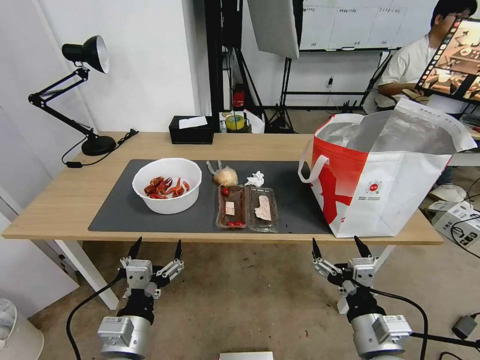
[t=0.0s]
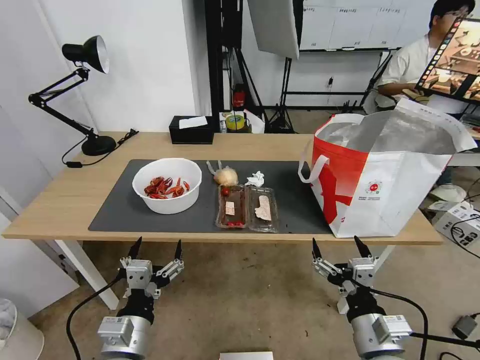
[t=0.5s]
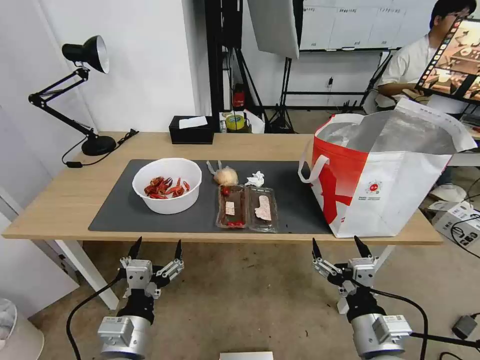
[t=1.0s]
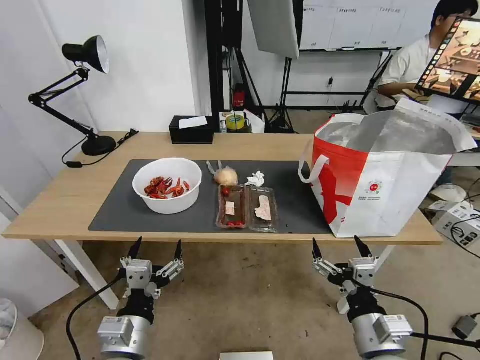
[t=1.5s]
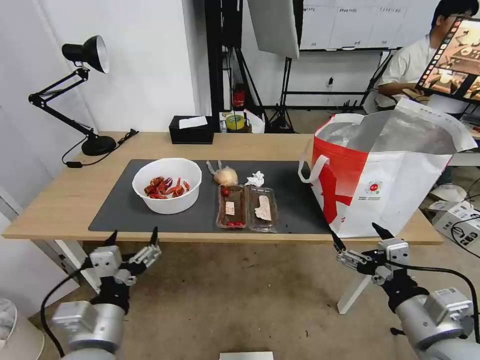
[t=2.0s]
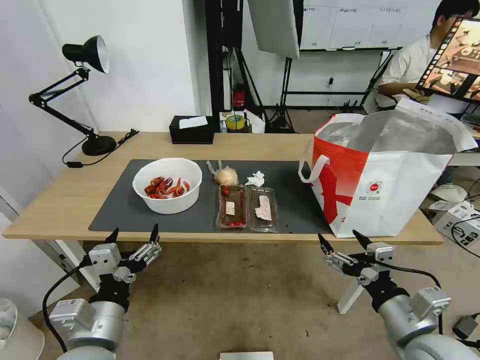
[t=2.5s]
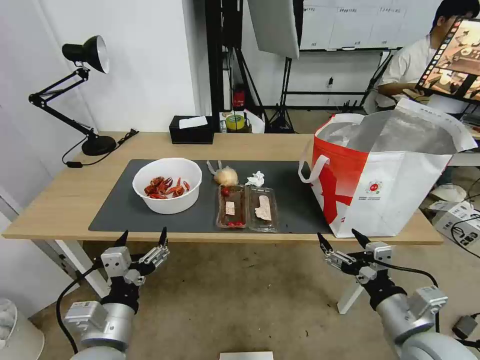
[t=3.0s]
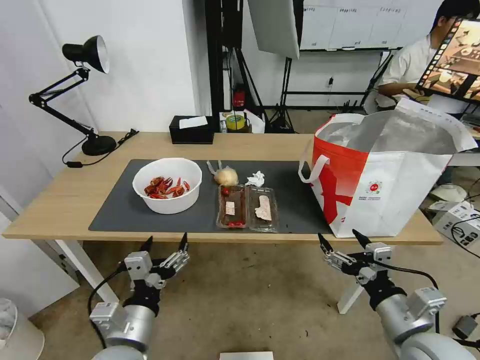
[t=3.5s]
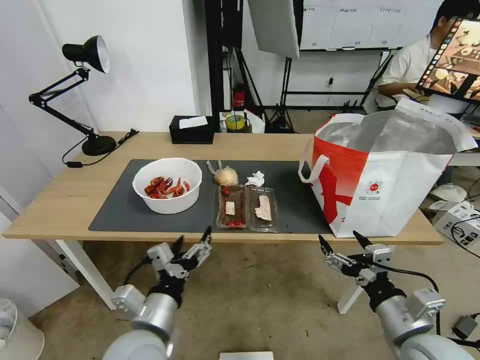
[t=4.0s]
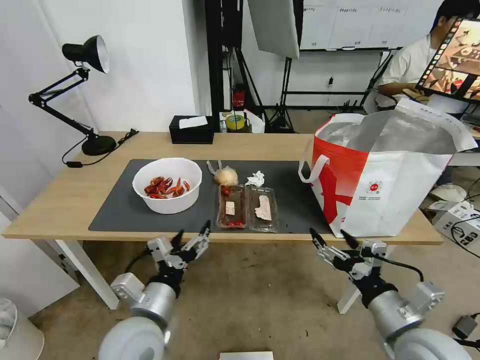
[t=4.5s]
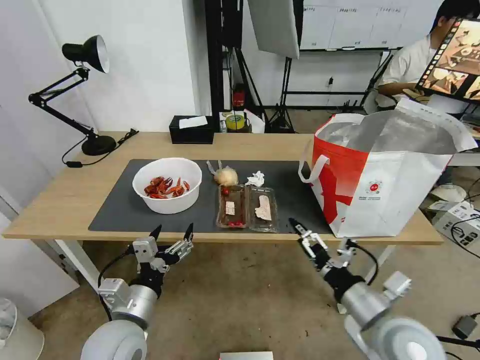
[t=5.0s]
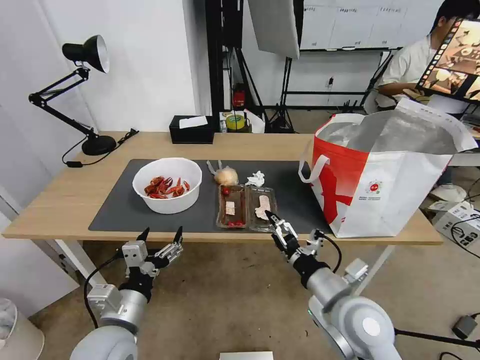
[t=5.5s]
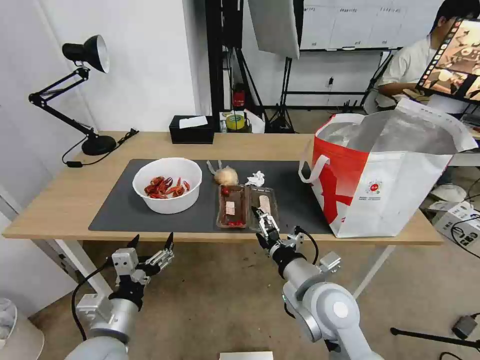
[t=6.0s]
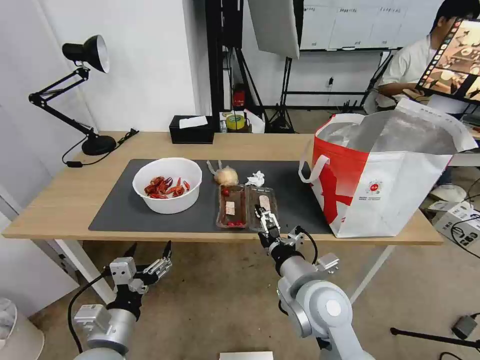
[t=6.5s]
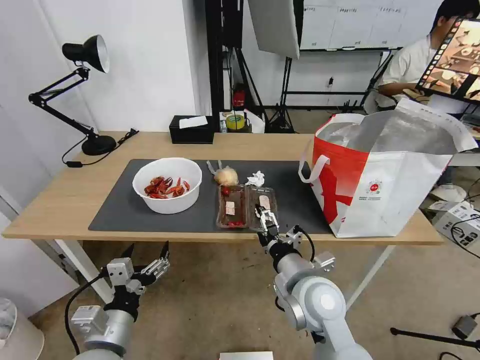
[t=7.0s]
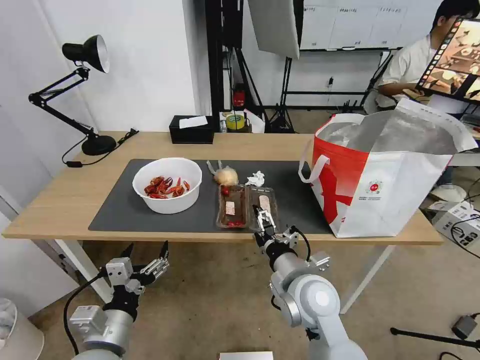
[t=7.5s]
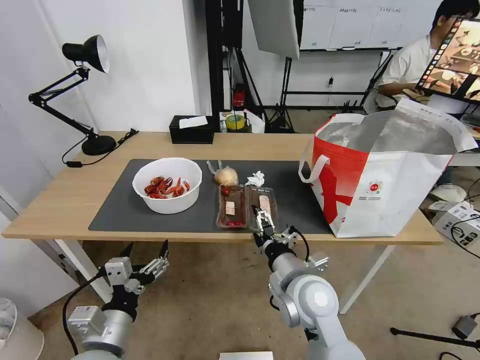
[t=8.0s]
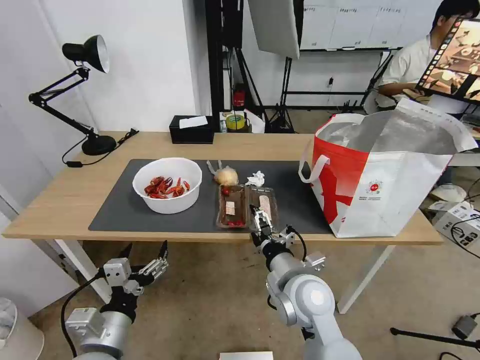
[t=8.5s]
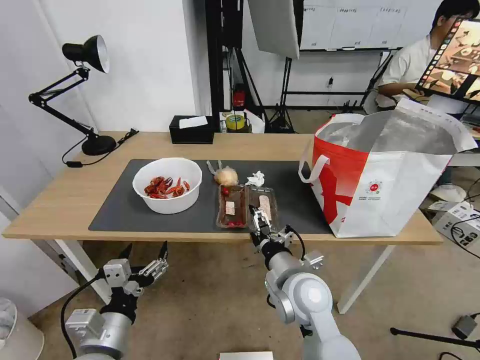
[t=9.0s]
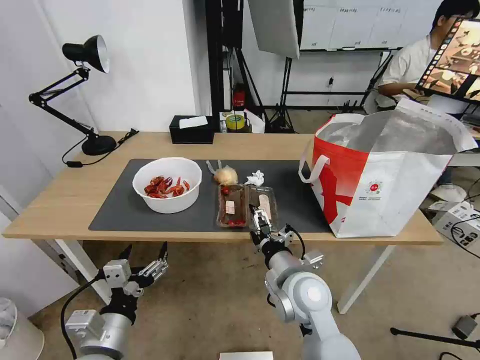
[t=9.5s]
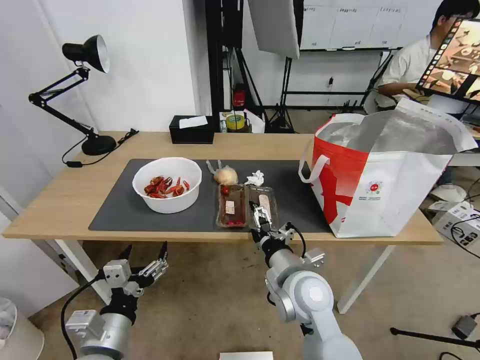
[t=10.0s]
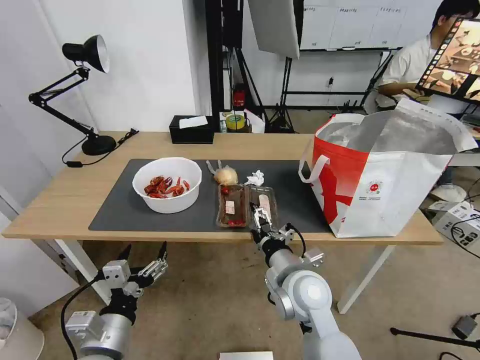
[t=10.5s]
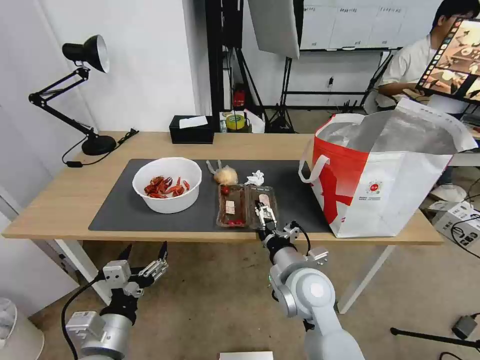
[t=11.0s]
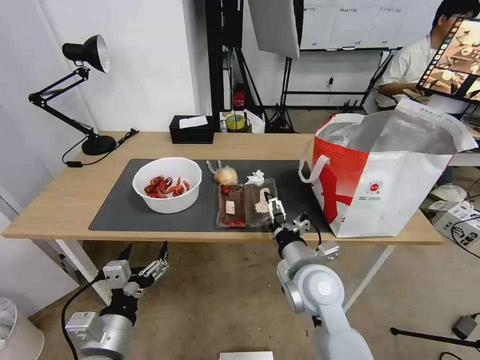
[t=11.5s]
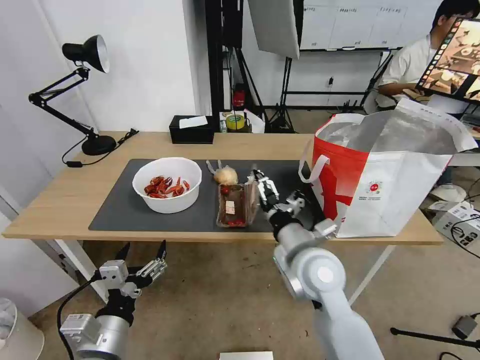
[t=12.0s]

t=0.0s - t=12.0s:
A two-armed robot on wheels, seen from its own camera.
Task of the whole recording: Pick up the trash from the table and place it into the takeout bag.
t=2.0s - t=4.0s: The left gripper is displaced to the right by about 5 cm, while the right gripper shifts by roughly 5 cm.
t=4.0s - t=6.0s: The left gripper is displaced to the left by some 10 cm, while the right gripper goes about 15 cm to the left and forward.
t=6.0s - t=10.0s: The grippers stay close to where they were, moving slightly.
t=10.0s - t=12.0s: The right gripper shifts by roughly 5 cm.

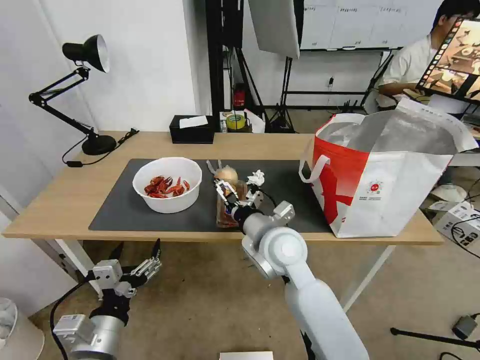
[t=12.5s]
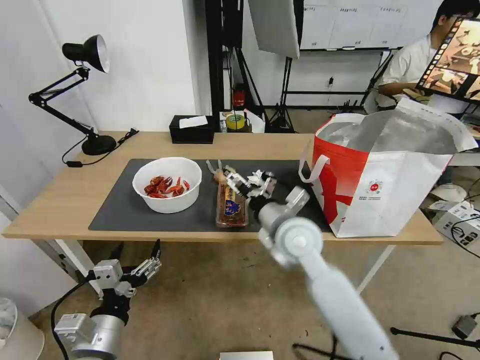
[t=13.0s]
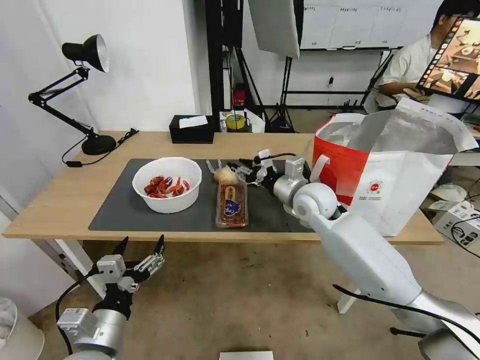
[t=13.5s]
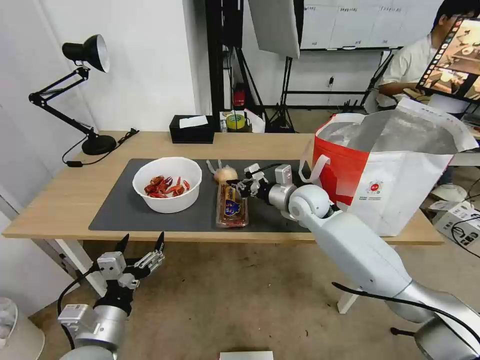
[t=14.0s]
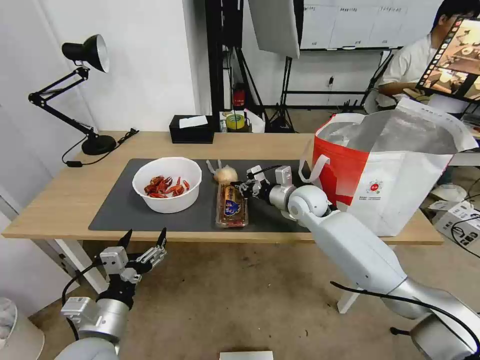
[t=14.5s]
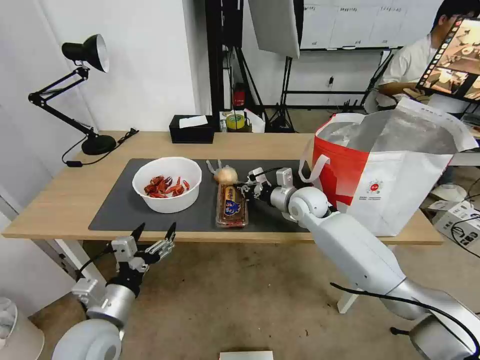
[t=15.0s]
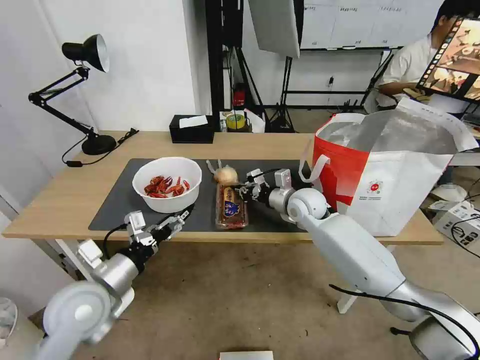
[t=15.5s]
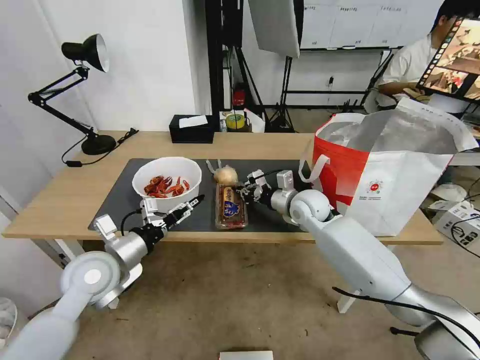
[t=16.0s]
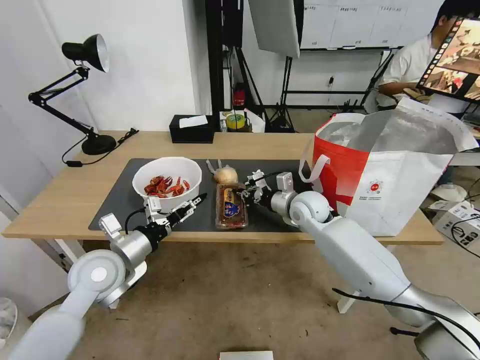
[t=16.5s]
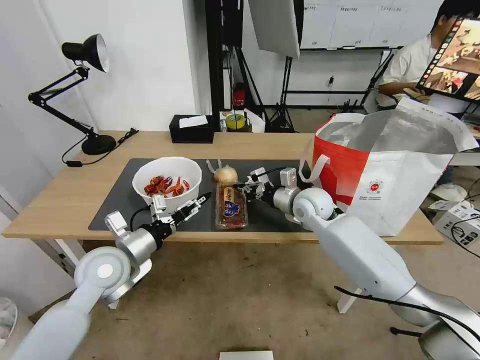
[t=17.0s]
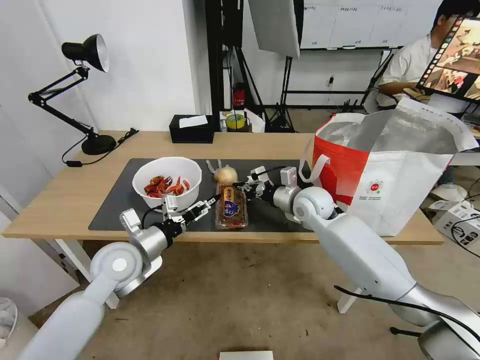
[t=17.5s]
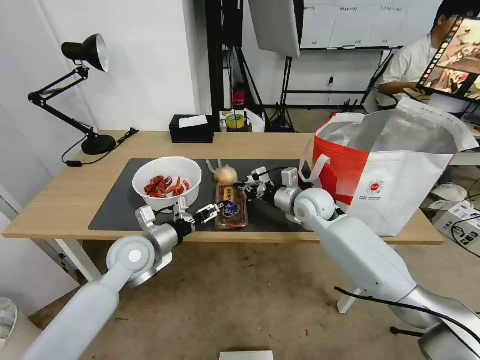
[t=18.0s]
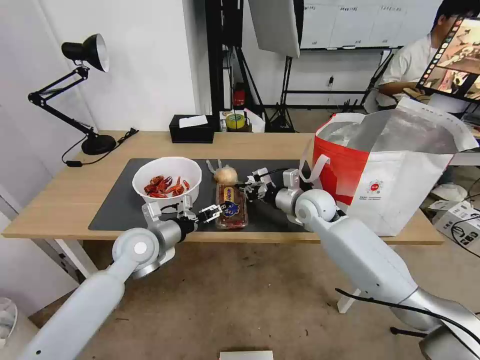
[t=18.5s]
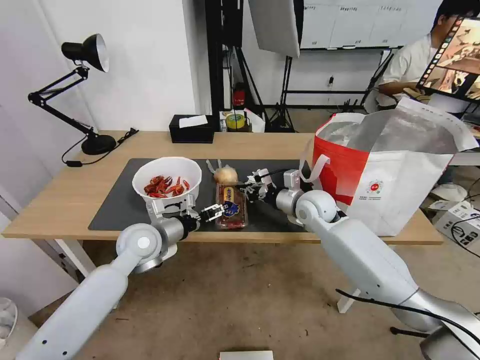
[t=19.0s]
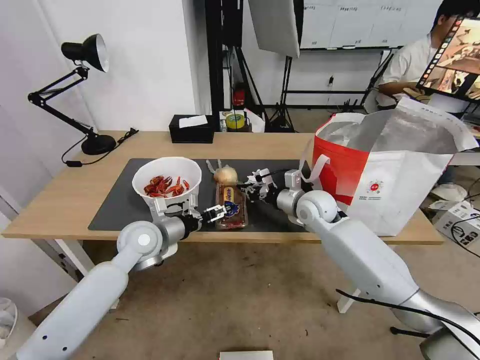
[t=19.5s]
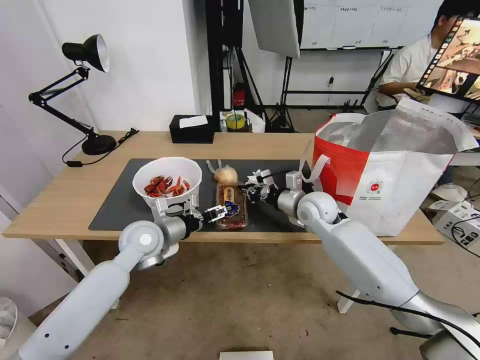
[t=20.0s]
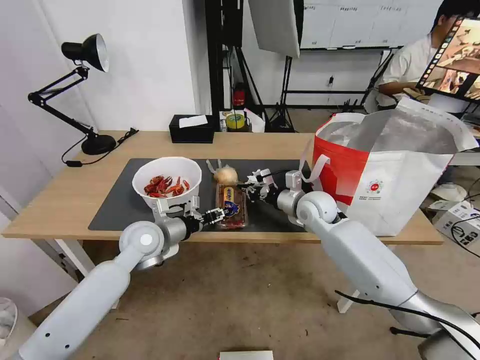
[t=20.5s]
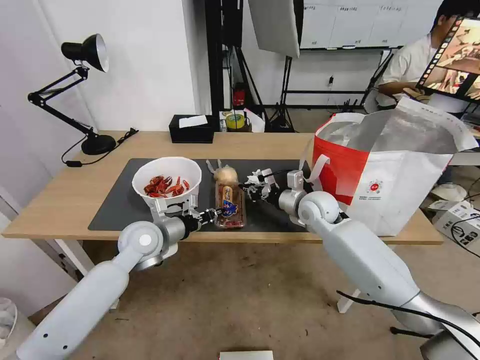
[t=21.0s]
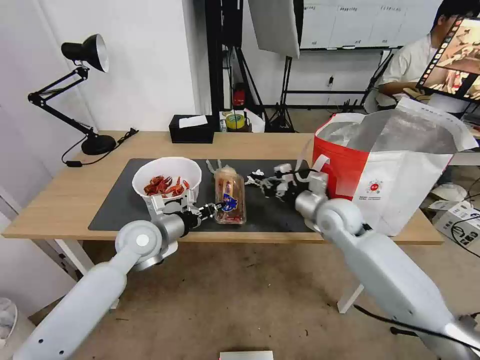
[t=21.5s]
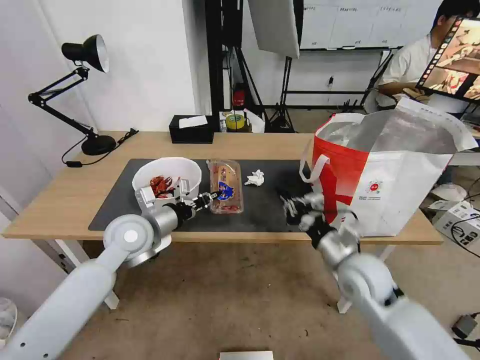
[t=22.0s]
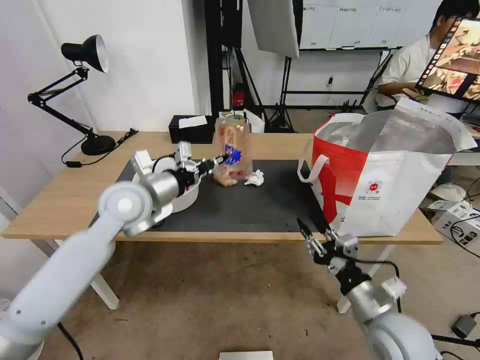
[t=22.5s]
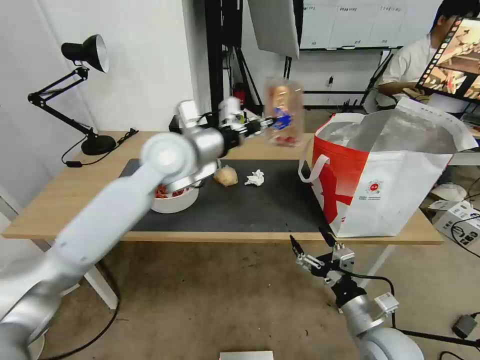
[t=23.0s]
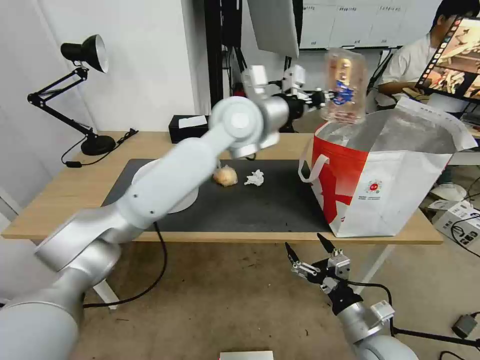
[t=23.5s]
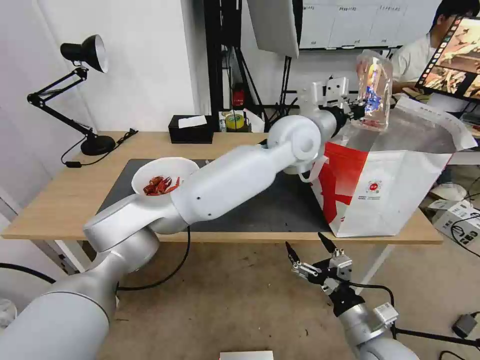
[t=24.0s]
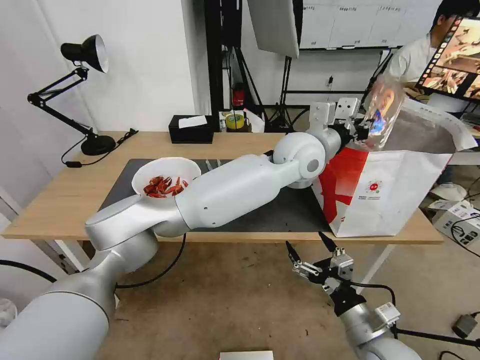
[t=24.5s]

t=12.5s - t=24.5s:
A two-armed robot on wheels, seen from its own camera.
Task of the whole recording: Pick up the trash from the table and place it into the takeout bag.
t=12.5s - t=14.5s: The right gripper travels forward and to the right by about 20 cm, and closes.
t=14.5s - t=16.5s: The left gripper travels forward by roughly 15 cm.
t=16.5s - t=18.5s: The left gripper is displaced forward by approximately 5 cm.
t=18.5s - t=20.5s: The left gripper closes.
t=20.5s - t=22.5s: The right gripper moves backward, about 30 cm, and opens; the left gripper shifts some 10 cm upward, and closes its fingers.
t=22.5s - t=24.5s: The left gripper goes some 35 cm to the right. Meanwhile the right gripper moves some 5 cm, and opens.

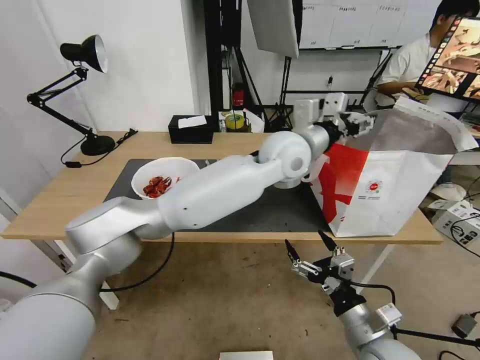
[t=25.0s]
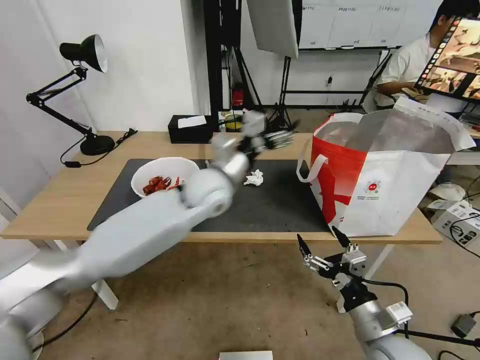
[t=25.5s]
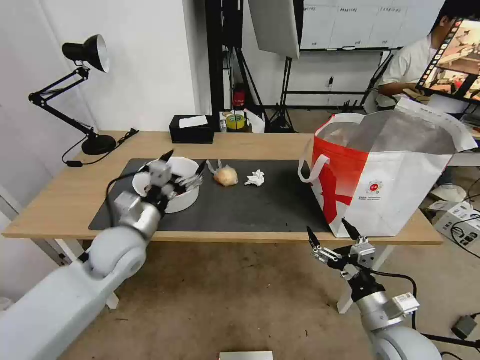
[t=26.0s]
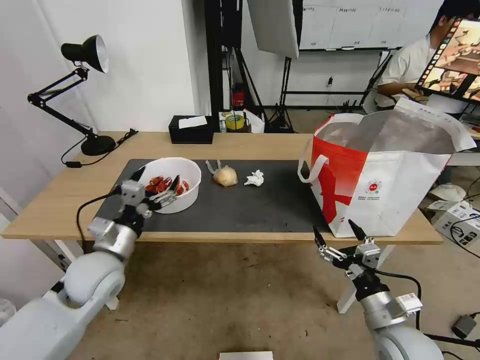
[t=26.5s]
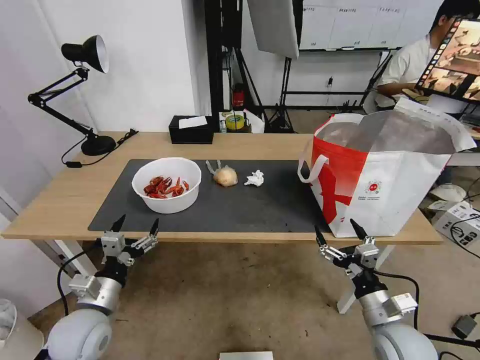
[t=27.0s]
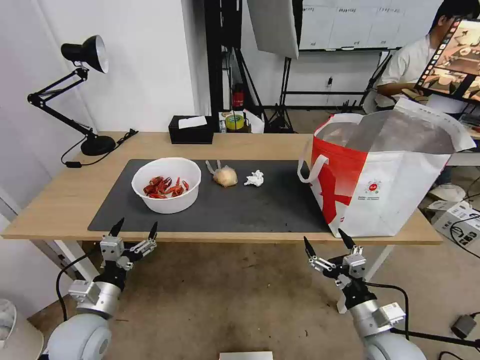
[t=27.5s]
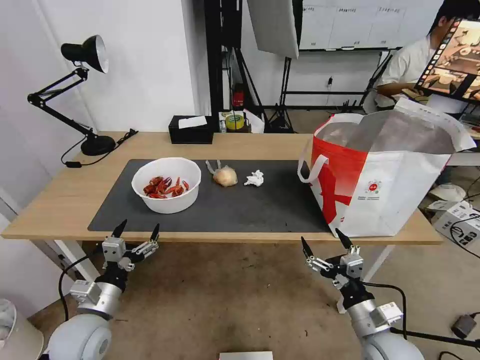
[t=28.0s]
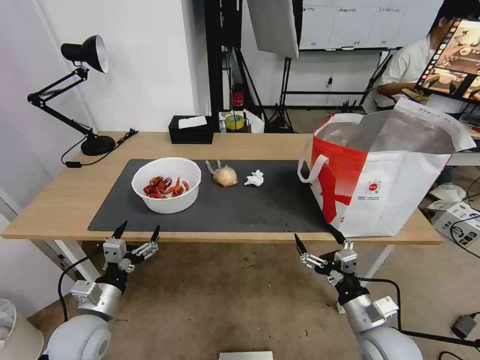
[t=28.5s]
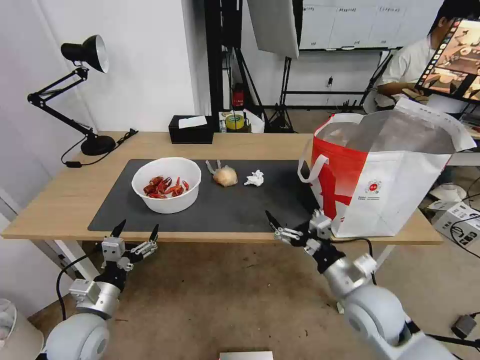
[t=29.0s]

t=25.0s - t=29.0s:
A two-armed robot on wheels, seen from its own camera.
Task of the whole recording: Pick up the trash from the table and place it into the takeout bag.
t=25.0s - t=27.0s: The right gripper shifts by about 5 cm. Meanwhile the left gripper shifts approximately 50 cm to the left, downward and backward.
t=27.0s - t=29.0s: The right gripper shifts about 10 cm to the left, forward and upward.
